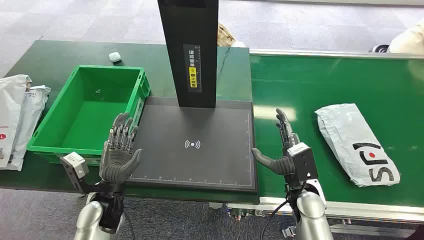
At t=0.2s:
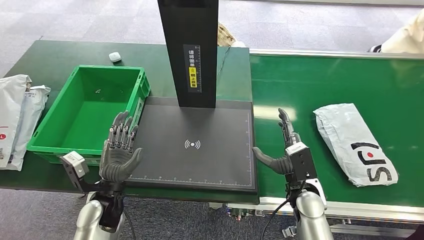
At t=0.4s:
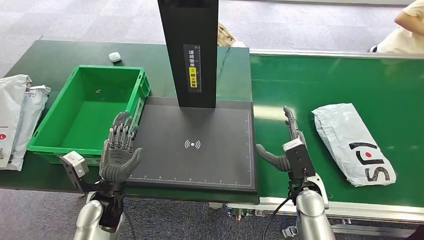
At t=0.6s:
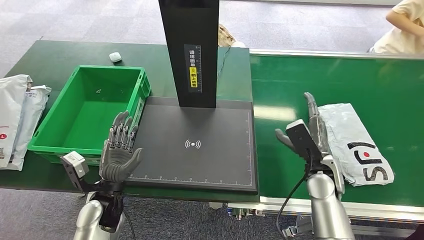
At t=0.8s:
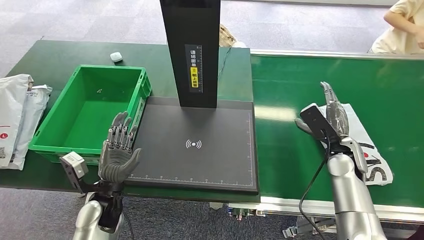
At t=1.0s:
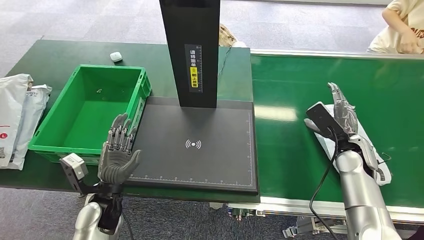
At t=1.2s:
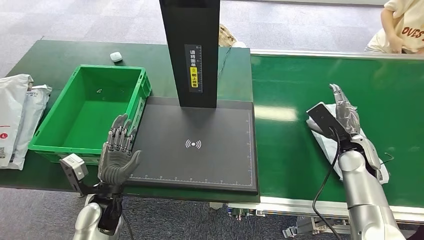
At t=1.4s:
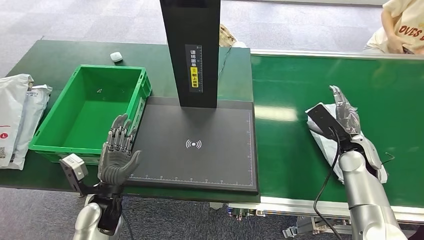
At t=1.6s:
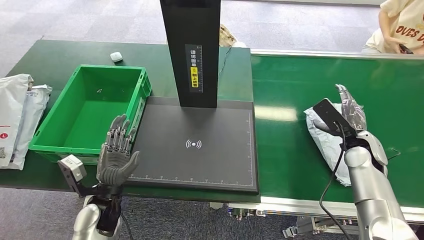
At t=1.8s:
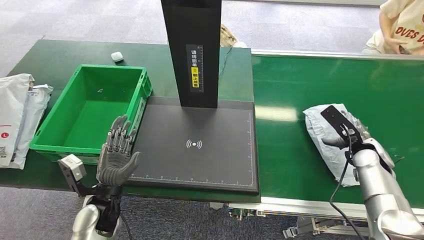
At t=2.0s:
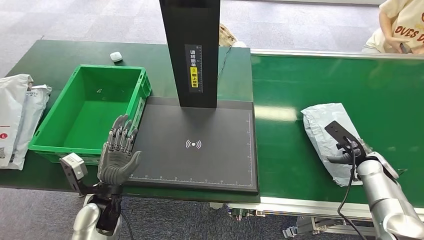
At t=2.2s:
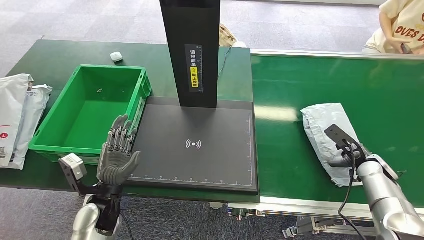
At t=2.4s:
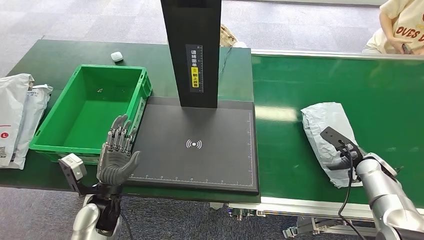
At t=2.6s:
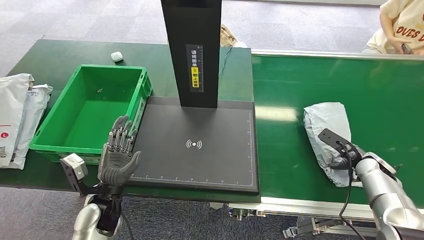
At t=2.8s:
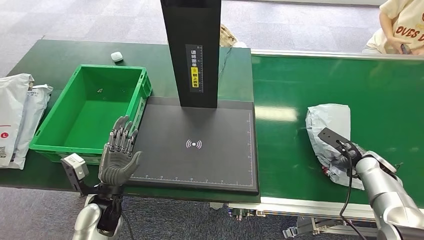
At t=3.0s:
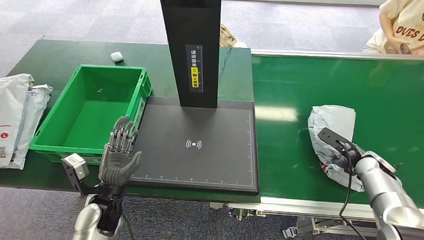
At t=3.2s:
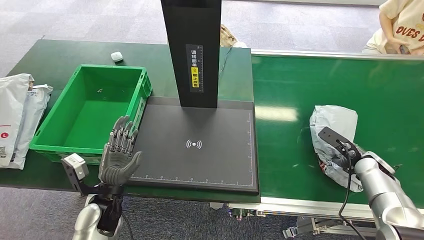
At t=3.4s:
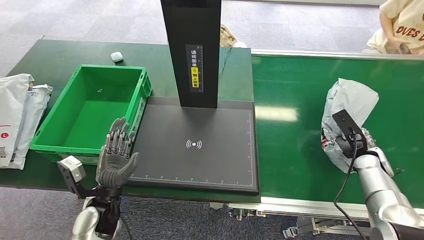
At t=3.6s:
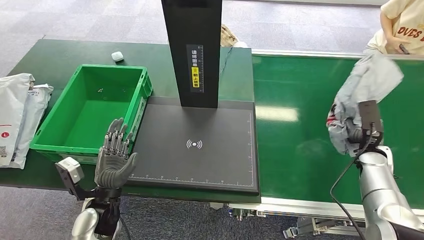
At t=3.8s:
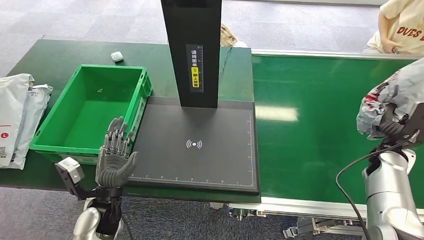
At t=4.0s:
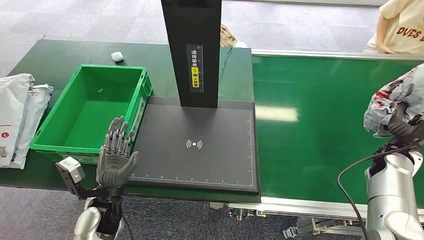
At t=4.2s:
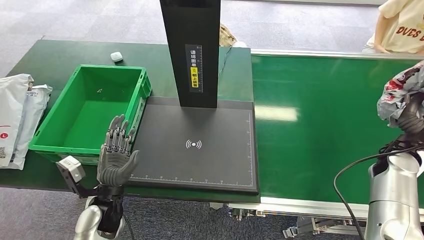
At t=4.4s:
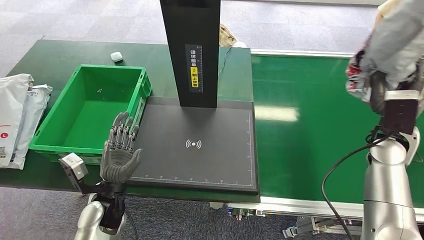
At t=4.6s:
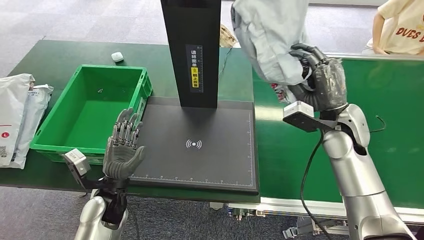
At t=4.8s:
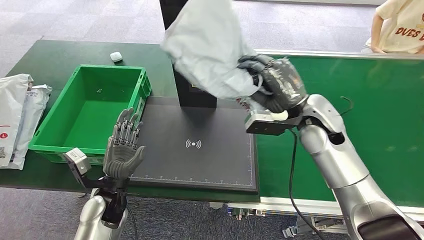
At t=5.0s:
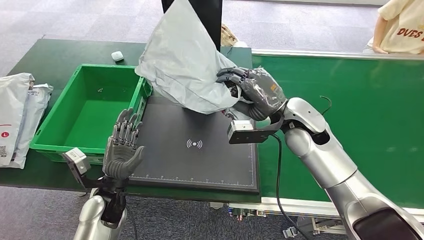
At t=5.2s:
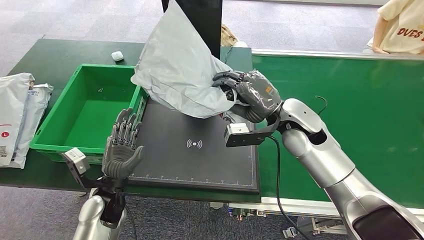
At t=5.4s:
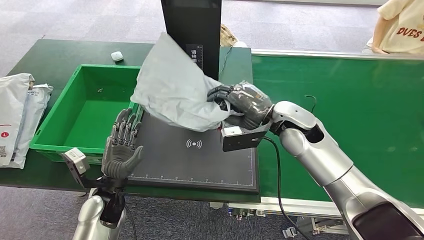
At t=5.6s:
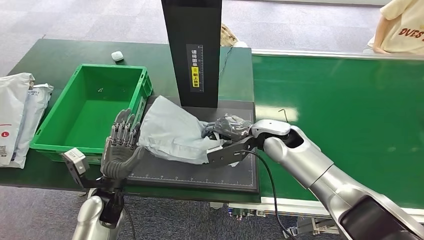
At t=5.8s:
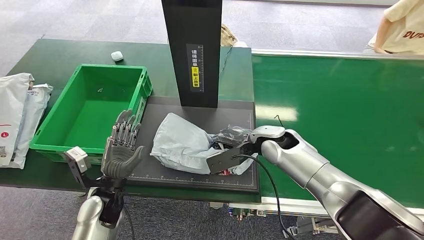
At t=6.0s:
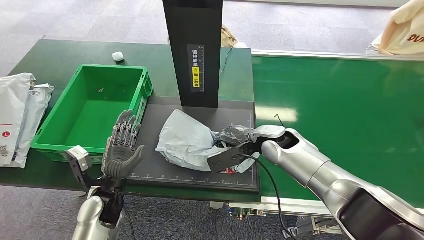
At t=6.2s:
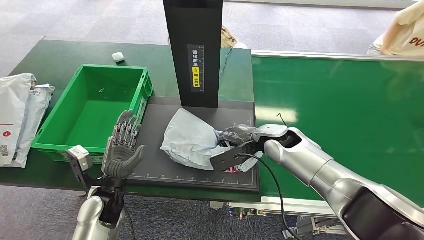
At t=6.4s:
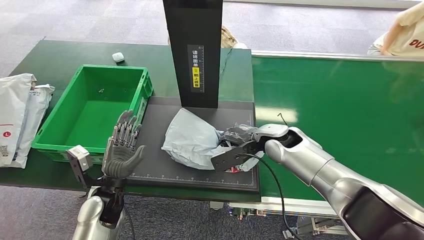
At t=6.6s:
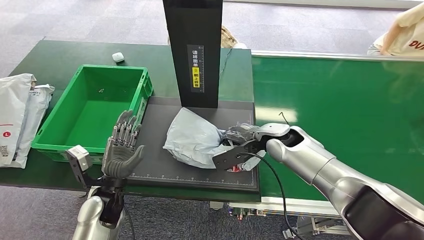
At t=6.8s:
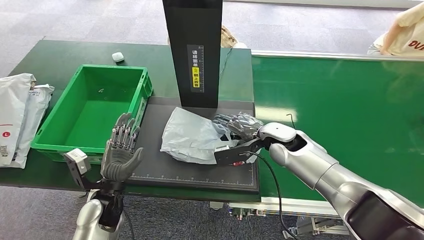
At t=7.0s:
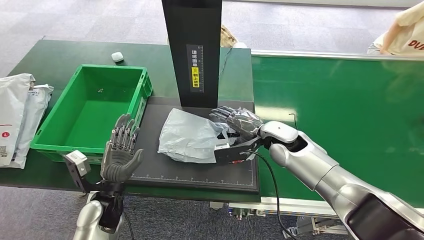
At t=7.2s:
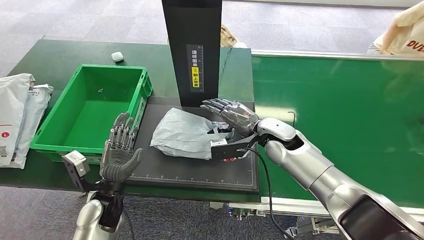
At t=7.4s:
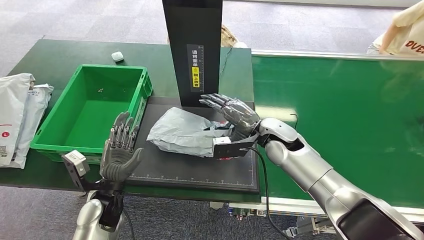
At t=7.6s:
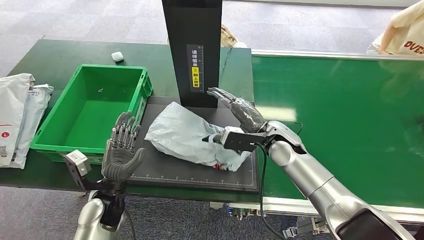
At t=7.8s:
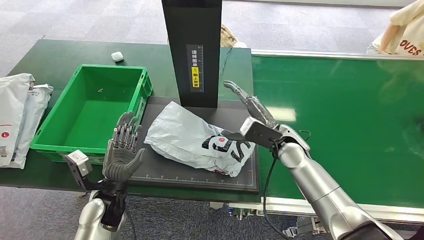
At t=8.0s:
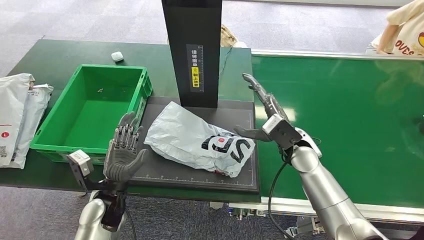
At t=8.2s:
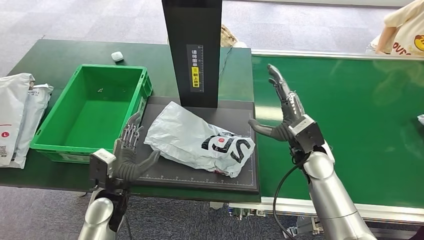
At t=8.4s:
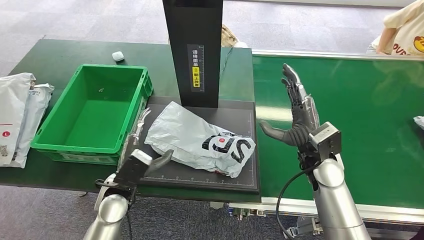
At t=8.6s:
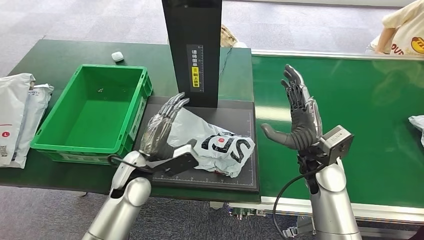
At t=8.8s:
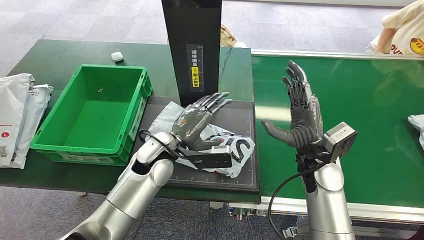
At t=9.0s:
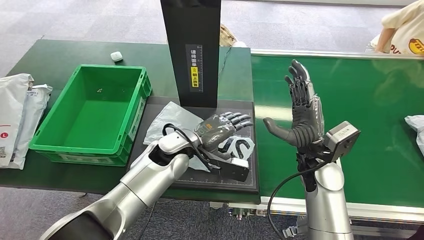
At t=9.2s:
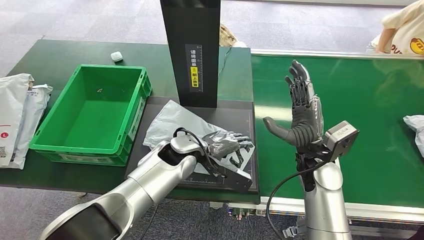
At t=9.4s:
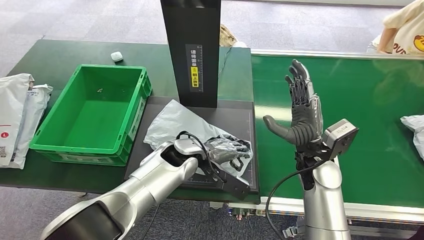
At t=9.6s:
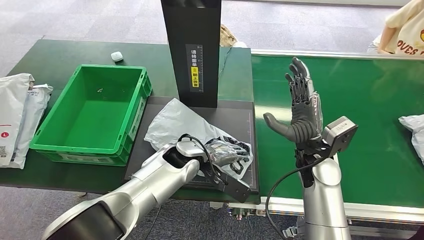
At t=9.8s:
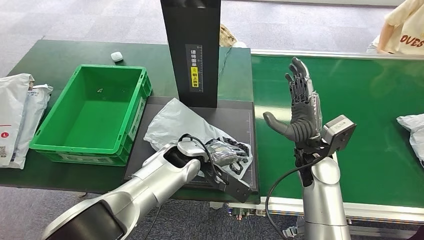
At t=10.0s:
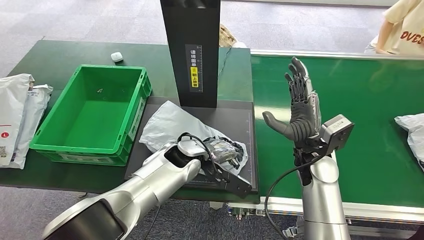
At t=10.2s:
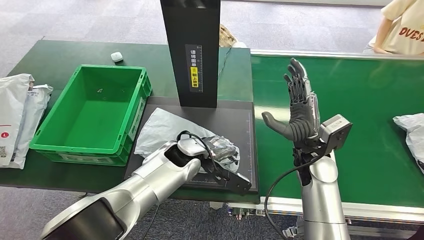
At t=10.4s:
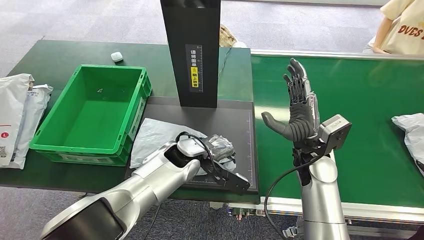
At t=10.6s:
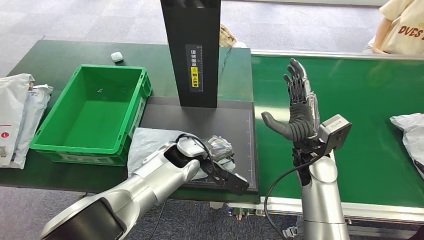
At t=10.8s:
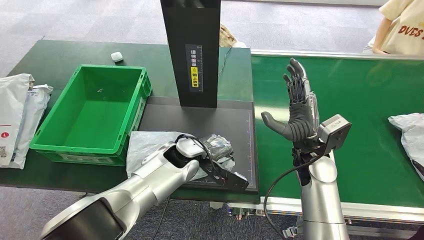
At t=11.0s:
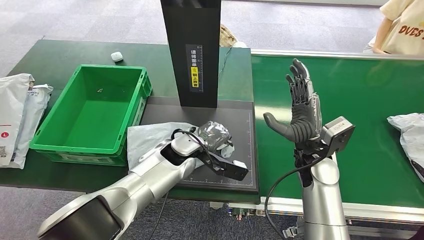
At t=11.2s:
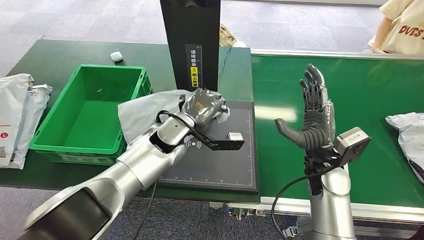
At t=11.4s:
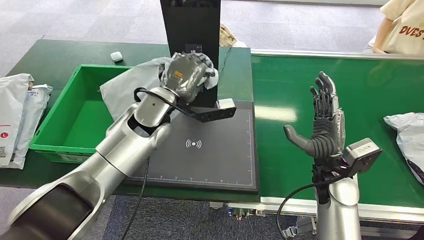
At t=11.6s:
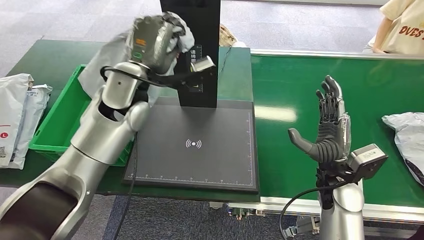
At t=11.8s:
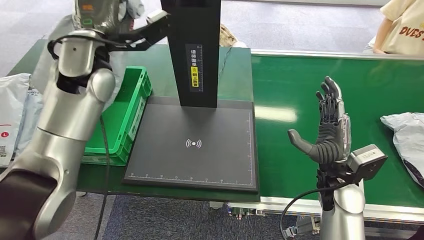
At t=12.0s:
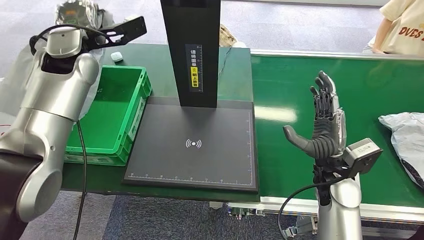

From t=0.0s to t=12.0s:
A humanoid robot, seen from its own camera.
Step, from t=0.0s to t=3.8s: Pick up the package from the conveyor belt.
Step, from t=4.0s to t=7.8s: Place the package onto the inbound machine.
Step, from t=8.2s to t=11.6s: Pick up the package from the inbound machine.
From t=1.6s to t=3.0s: The right hand travels to the right and downward by about 10 cm.
From t=3.0s to t=4.4s: The right hand shifts approximately 15 cm upward and to the left.

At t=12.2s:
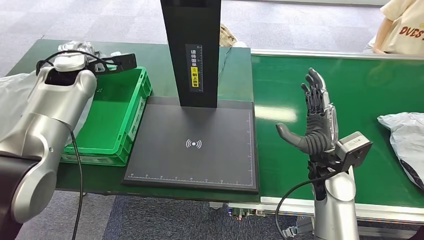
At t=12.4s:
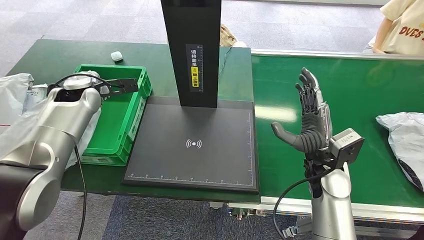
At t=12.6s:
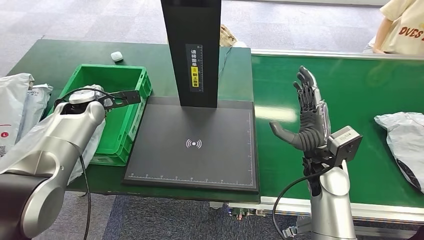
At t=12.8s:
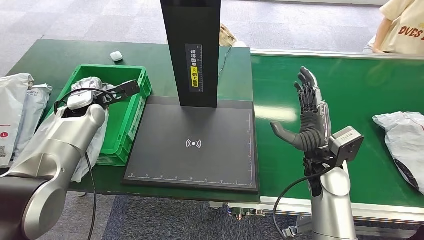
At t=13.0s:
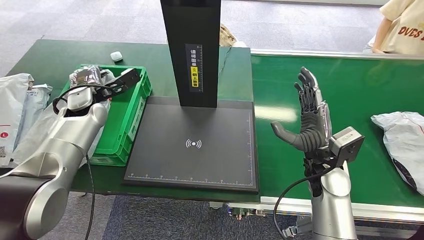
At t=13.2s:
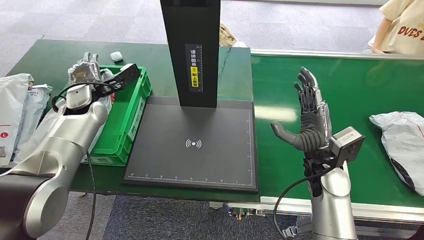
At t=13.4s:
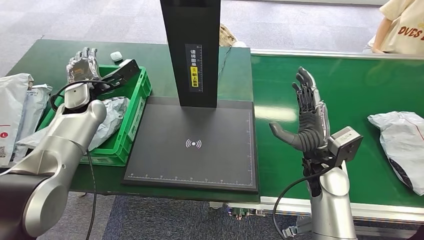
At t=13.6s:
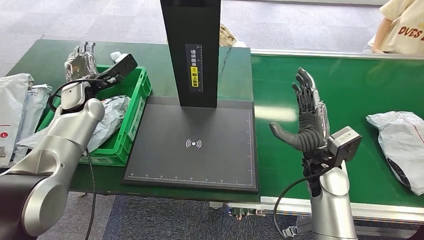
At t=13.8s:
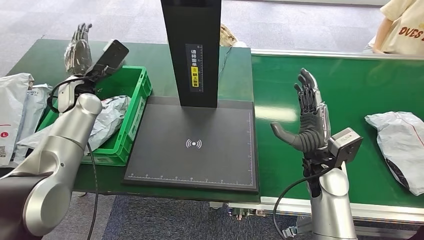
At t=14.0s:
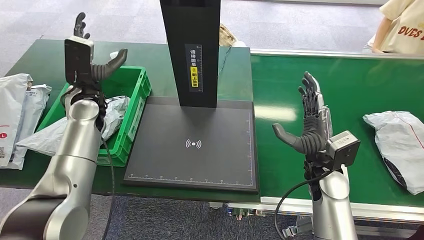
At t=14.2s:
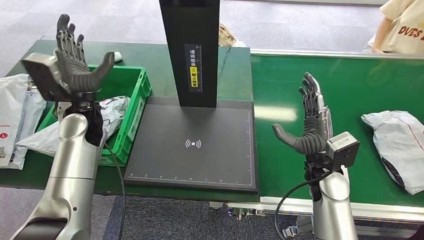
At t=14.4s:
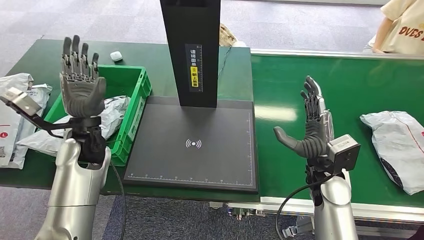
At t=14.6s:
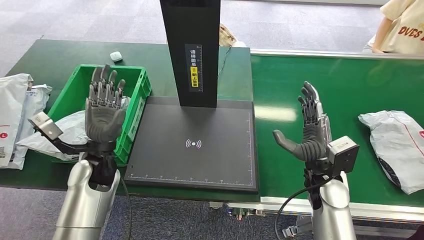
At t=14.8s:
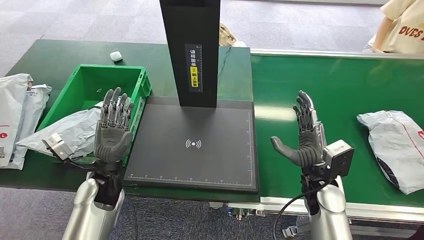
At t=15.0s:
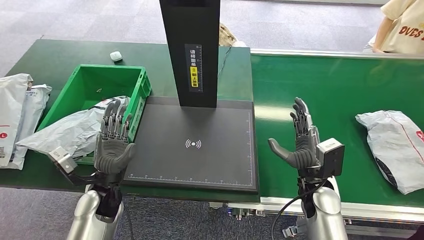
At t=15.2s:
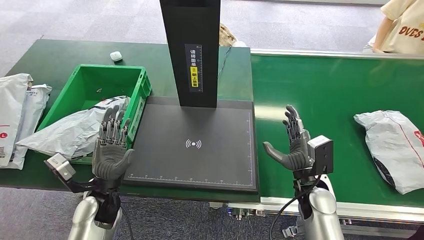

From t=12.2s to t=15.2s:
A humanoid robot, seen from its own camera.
Step, from t=12.2s to t=15.2s: Place the package into the parcel locker.

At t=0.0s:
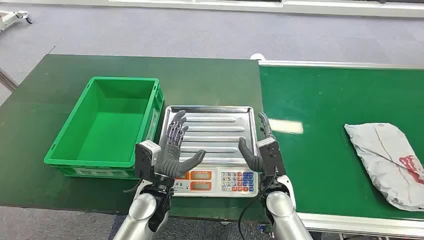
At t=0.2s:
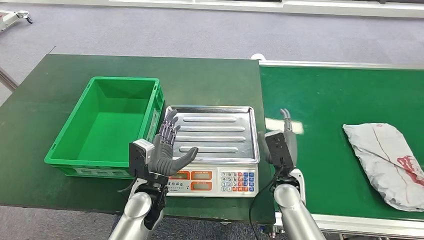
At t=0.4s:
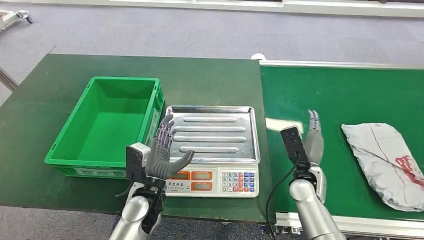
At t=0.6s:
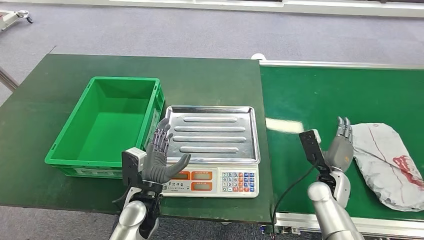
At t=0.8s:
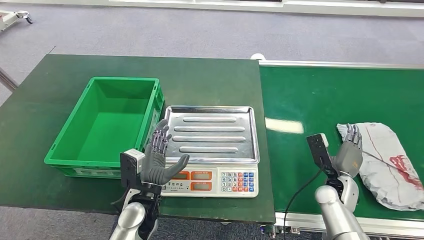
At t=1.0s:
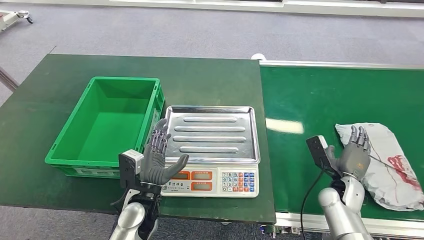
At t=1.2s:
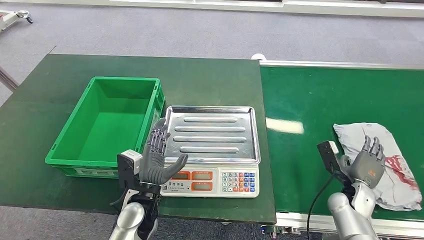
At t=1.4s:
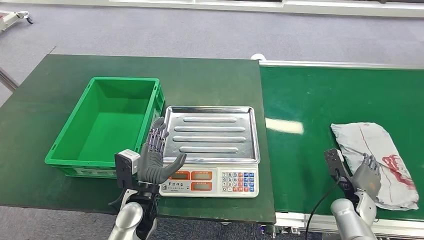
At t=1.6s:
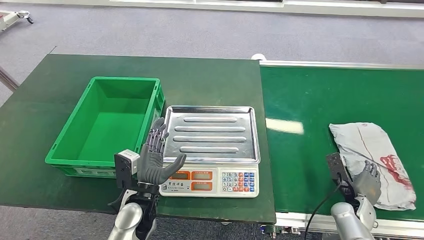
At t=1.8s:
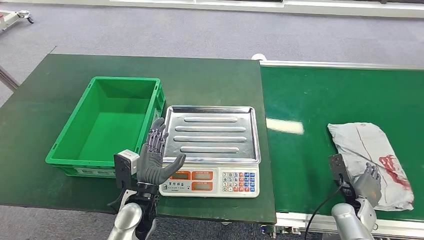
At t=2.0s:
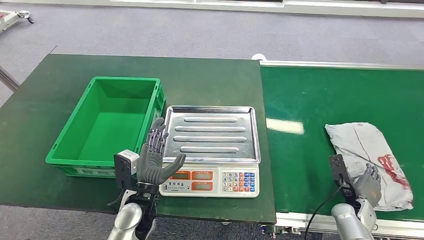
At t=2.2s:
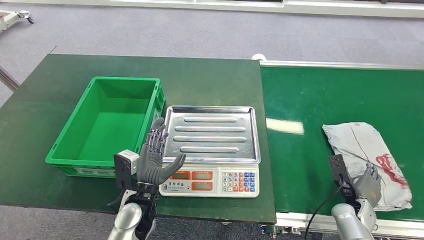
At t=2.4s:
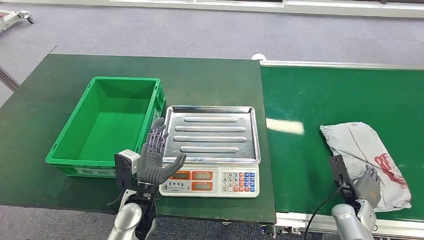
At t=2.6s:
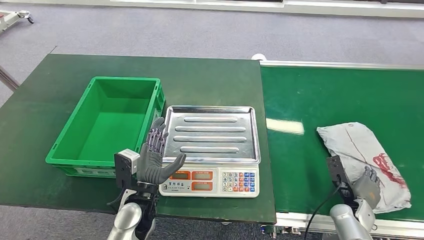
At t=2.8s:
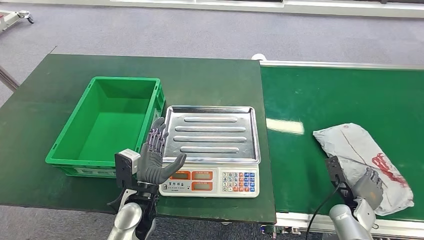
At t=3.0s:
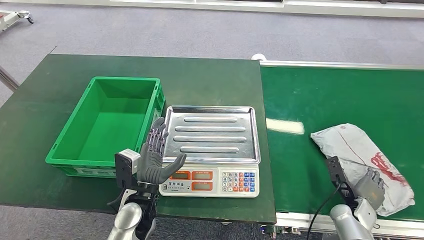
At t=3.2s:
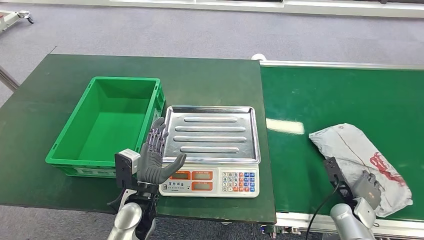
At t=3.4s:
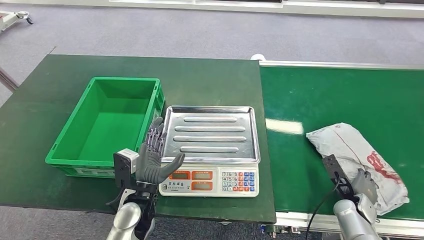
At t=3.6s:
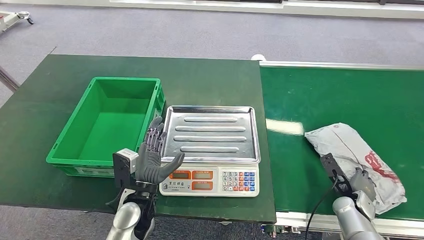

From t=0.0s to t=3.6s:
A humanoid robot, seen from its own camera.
From t=1.8s to t=3.6s: The hands make only small movements.
